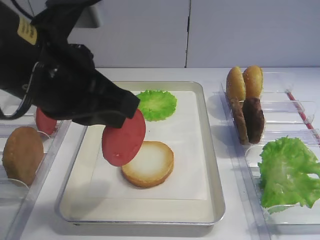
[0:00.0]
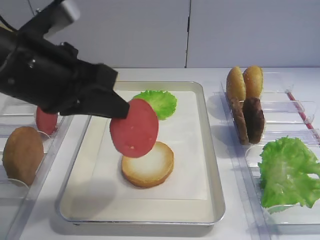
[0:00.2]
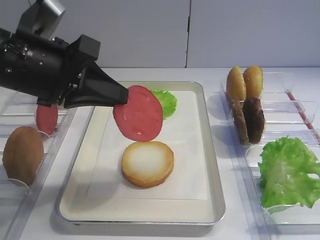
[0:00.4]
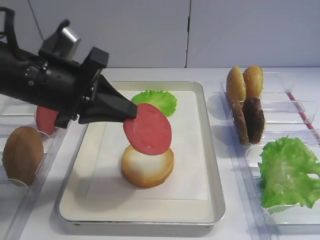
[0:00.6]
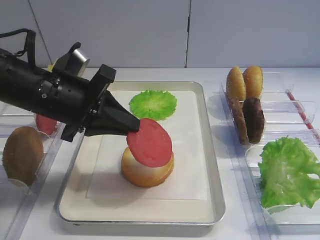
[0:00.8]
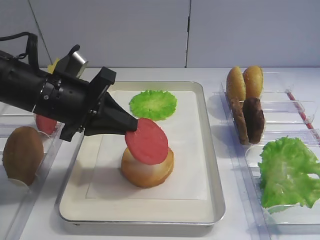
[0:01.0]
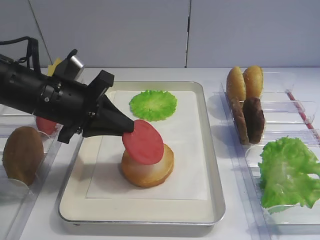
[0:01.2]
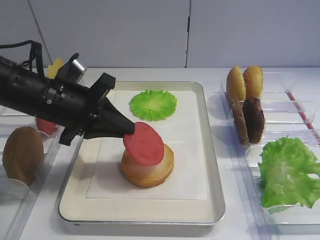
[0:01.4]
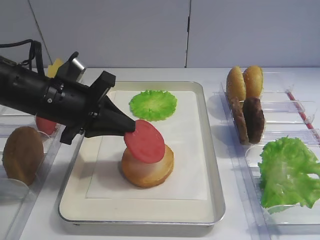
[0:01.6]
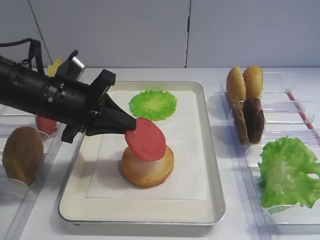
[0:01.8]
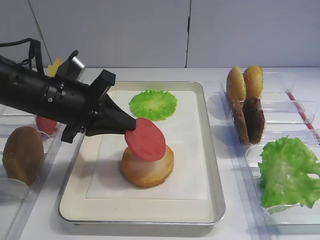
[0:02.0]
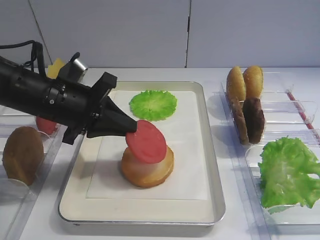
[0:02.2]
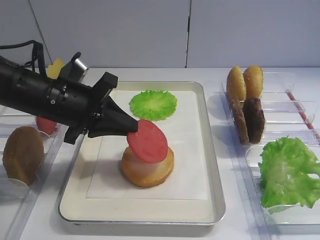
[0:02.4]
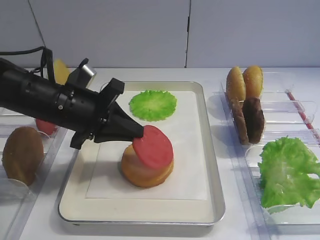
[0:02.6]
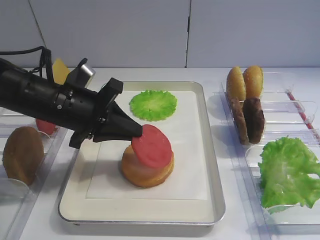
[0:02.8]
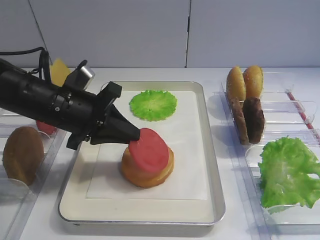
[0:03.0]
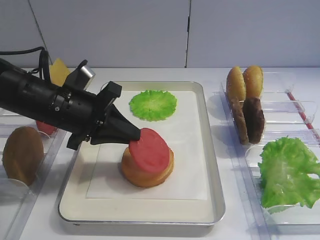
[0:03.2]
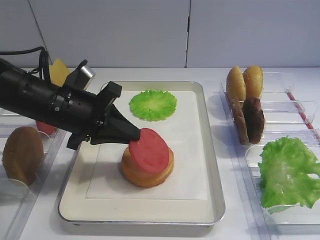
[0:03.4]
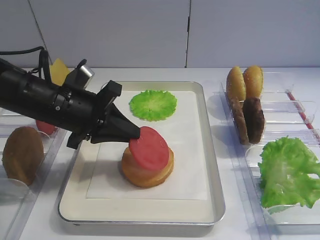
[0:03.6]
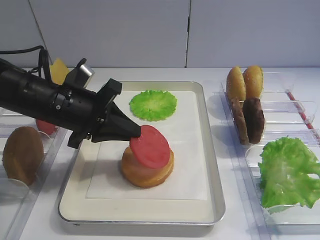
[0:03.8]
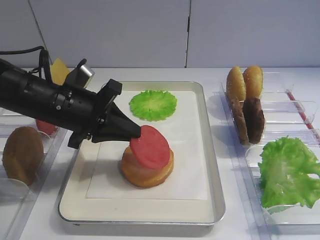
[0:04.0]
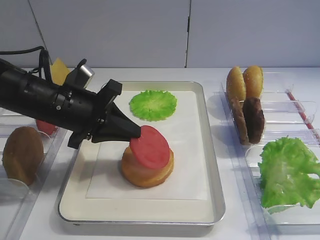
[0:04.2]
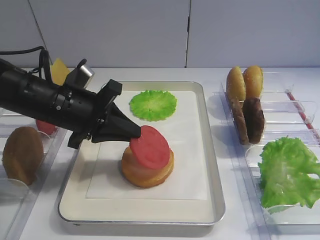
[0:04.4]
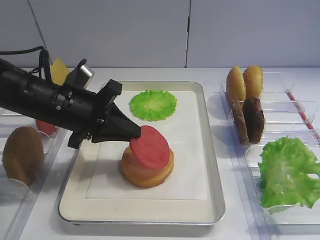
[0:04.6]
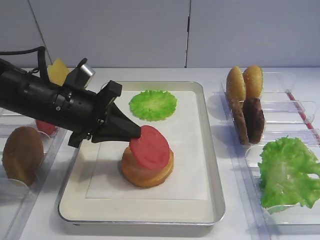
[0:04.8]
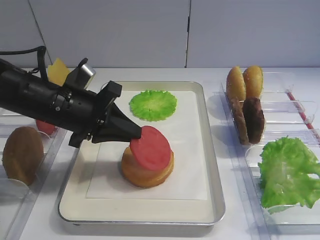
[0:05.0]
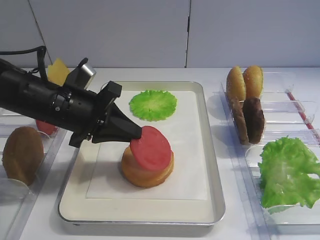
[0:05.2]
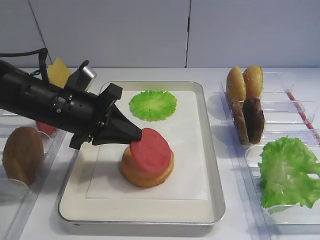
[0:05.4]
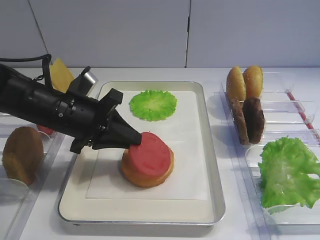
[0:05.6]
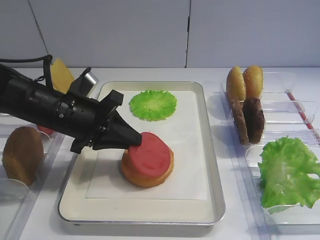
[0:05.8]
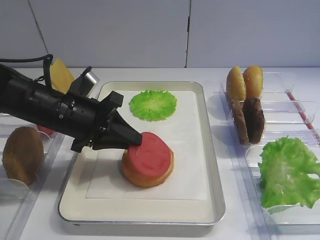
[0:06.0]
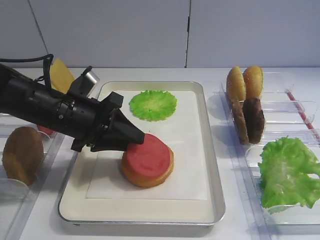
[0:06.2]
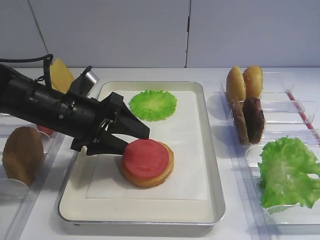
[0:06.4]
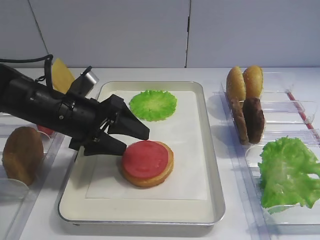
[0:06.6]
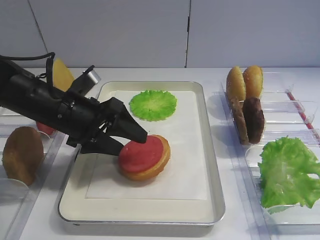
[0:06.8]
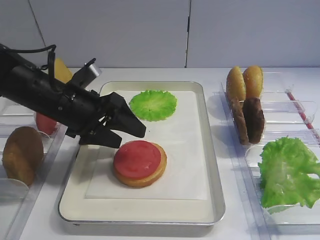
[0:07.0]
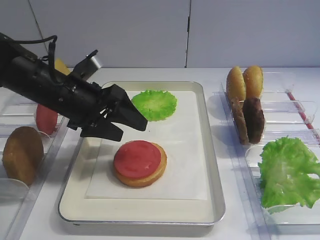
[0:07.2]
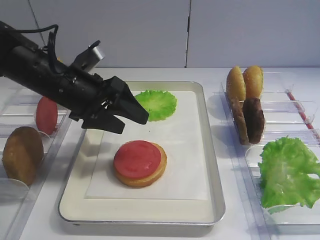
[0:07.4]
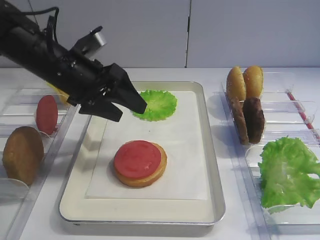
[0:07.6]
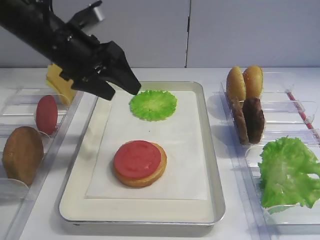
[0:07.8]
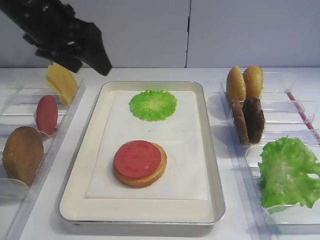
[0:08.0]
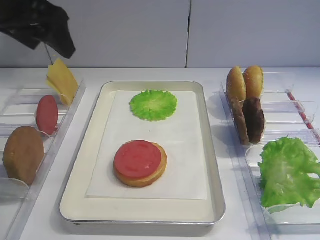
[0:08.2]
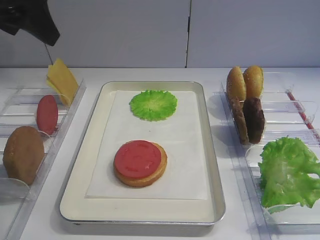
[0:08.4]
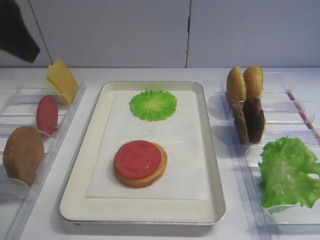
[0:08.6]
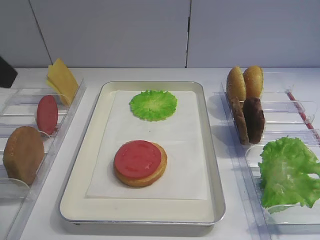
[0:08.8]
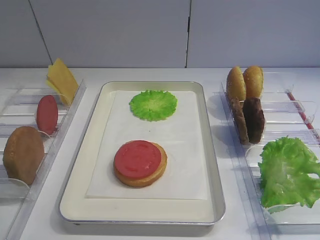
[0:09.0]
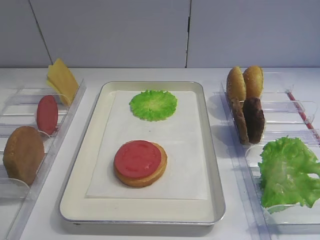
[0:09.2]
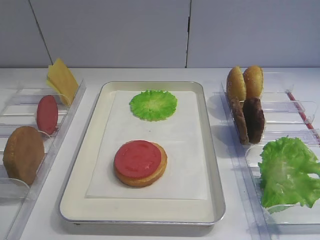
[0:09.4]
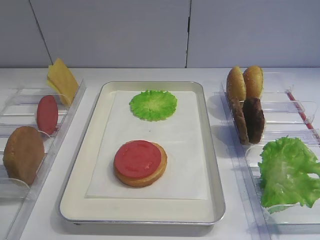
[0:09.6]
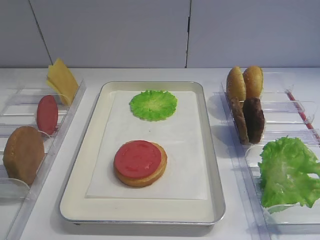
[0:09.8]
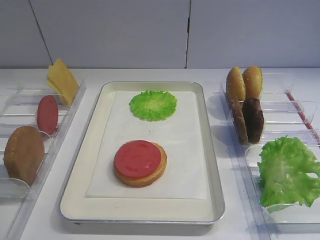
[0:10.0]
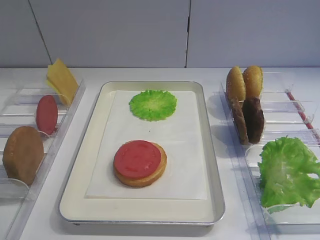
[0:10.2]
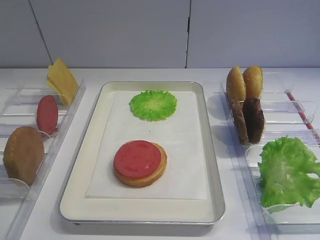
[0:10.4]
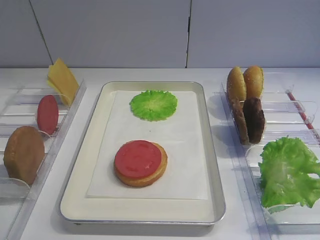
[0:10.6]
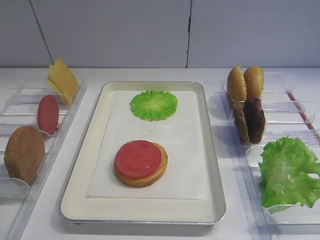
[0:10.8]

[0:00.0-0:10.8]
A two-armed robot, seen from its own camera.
Step, 0:00.0 to 0:07.4: Place the tomato slice on the bread slice with the left gripper.
0:00.0 to 0:01.6: The left gripper moves downward and forward, roughly 15 cm.
0:01.6 to 0:03.0: The grippers move only a little.
0:03.0 to 0:04.6: The two grippers keep their place.
0:04.6 to 0:06.2: There are only small adjustments of the grippers.
0:06.2 to 0:07.8: The left gripper heads upward and forward, covering some 10 cm, and opens its fingers.
0:07.8 to 0:09.2: The left gripper travels backward and to the left by about 25 cm.

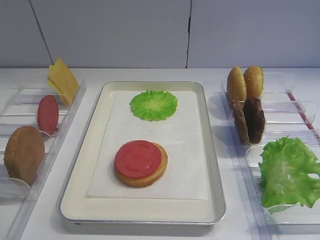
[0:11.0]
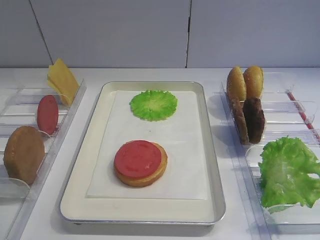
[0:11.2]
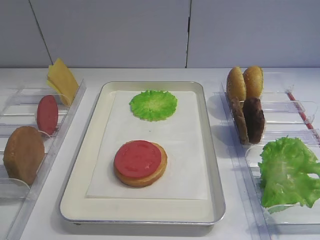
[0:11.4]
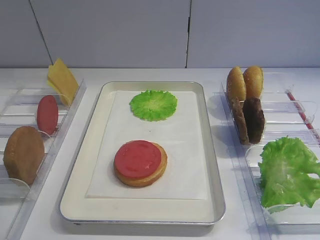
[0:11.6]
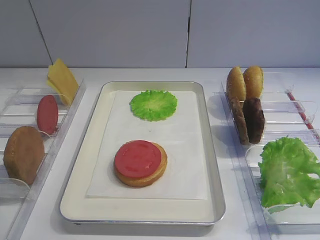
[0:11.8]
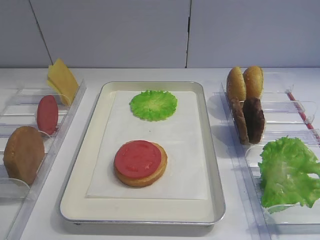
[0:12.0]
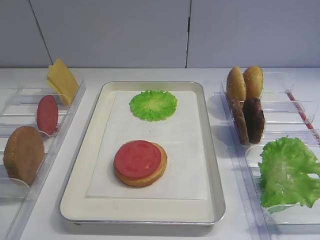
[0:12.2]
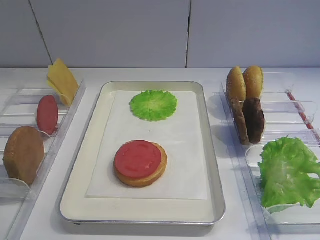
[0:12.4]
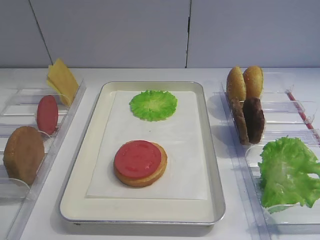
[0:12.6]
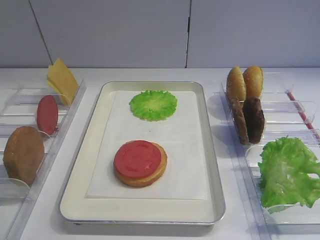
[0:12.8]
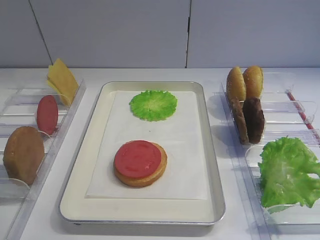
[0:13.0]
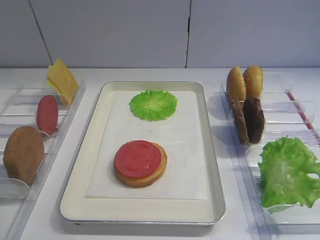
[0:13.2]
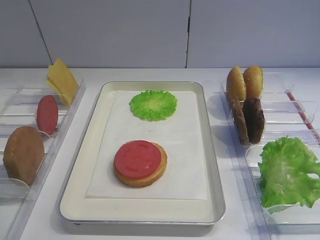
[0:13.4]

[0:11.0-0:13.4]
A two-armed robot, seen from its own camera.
0:12.2 to 0:13.4: Both grippers stay put.
